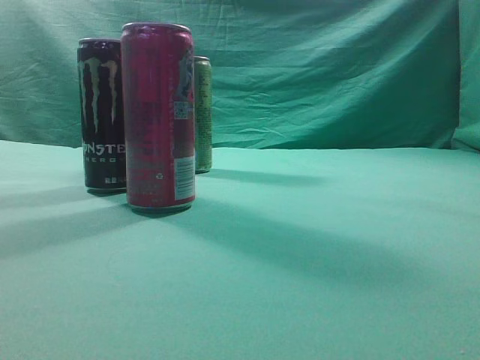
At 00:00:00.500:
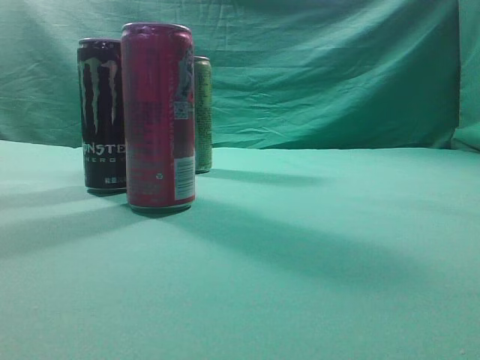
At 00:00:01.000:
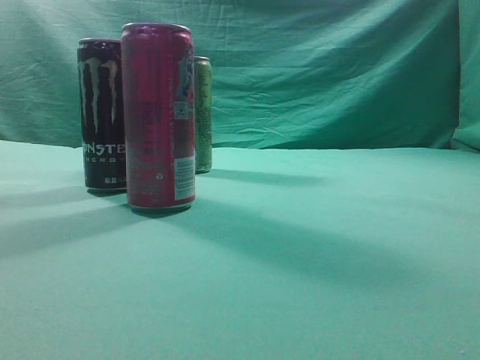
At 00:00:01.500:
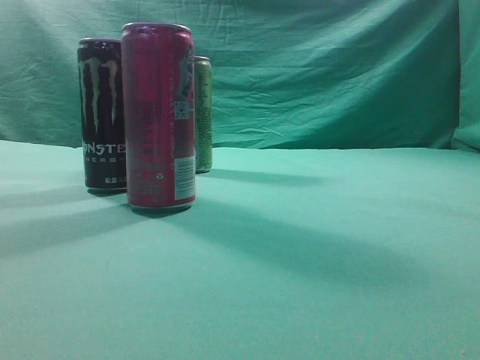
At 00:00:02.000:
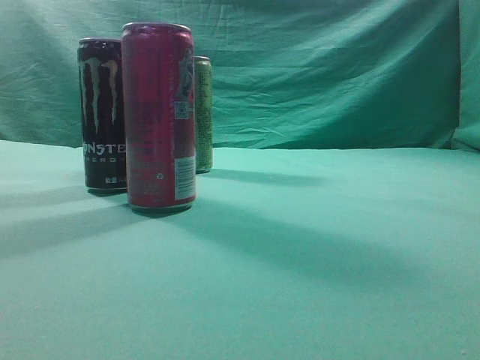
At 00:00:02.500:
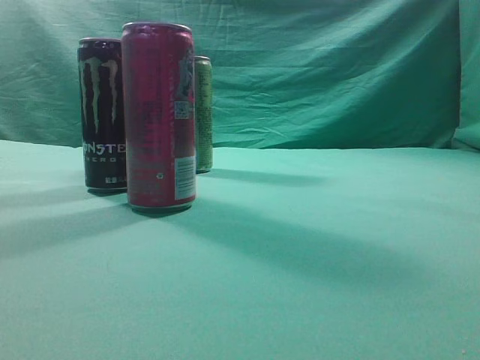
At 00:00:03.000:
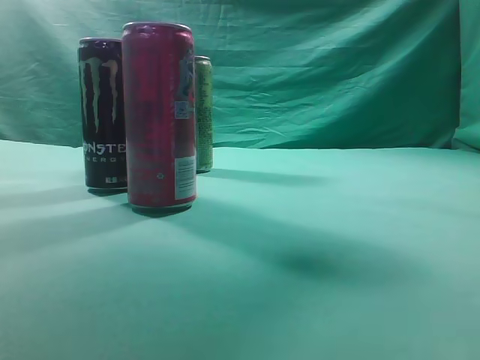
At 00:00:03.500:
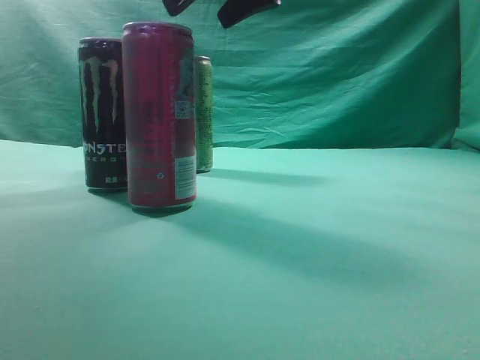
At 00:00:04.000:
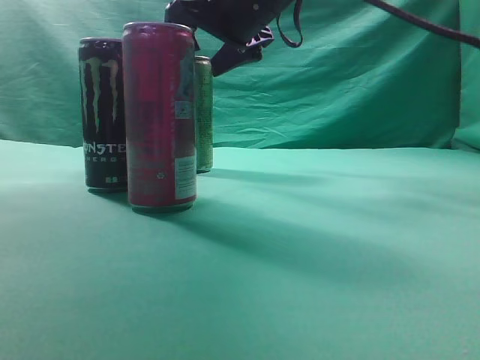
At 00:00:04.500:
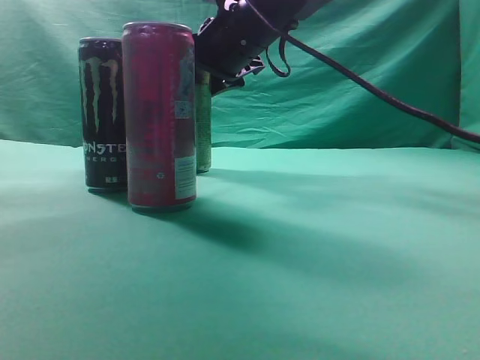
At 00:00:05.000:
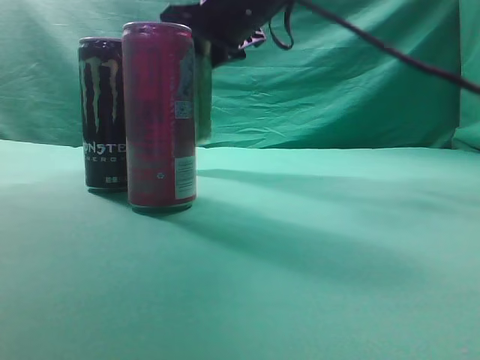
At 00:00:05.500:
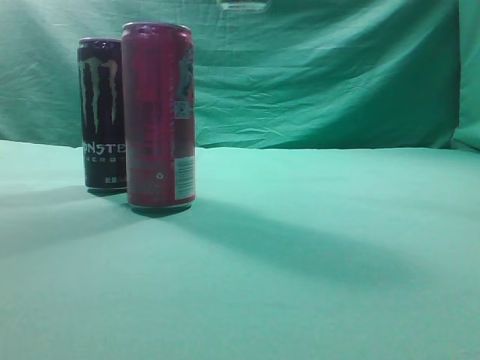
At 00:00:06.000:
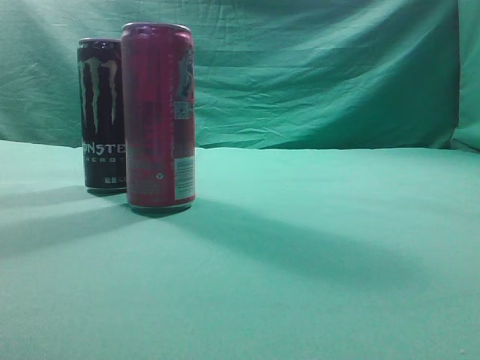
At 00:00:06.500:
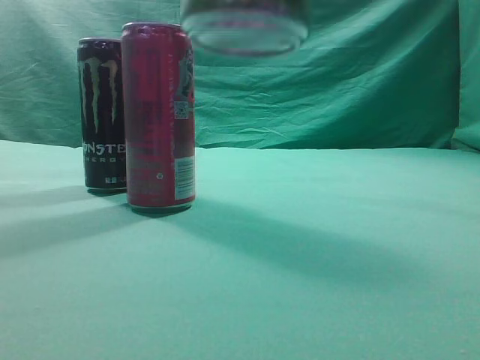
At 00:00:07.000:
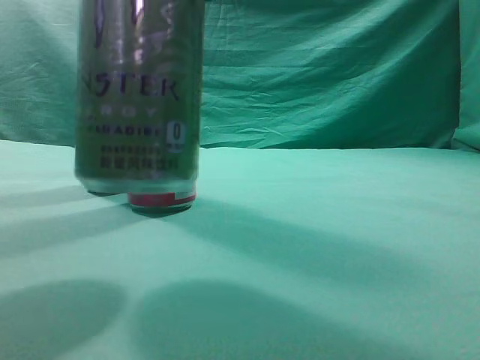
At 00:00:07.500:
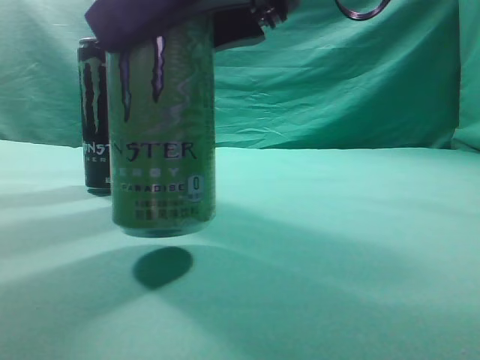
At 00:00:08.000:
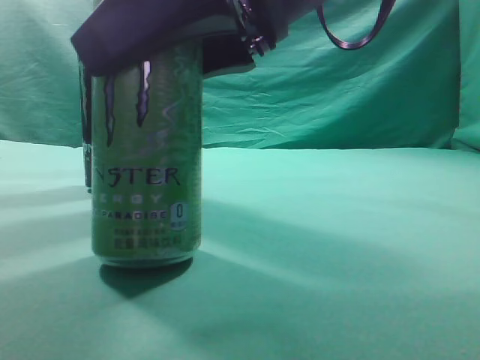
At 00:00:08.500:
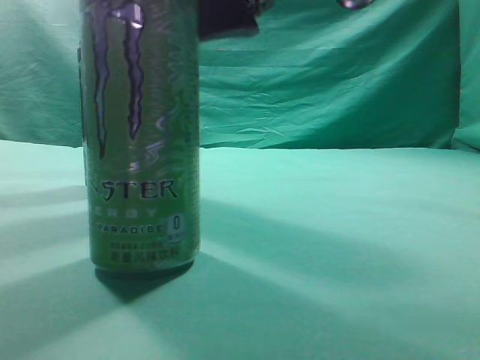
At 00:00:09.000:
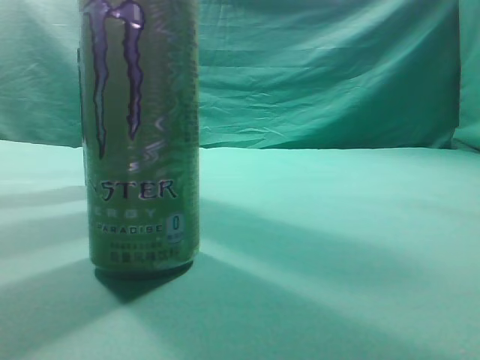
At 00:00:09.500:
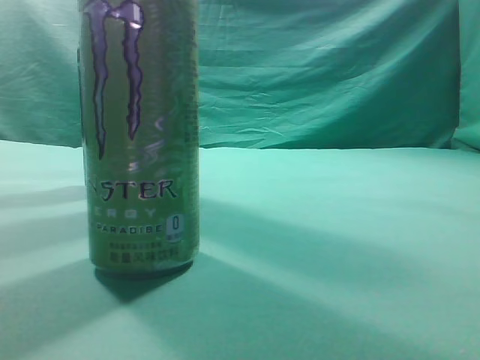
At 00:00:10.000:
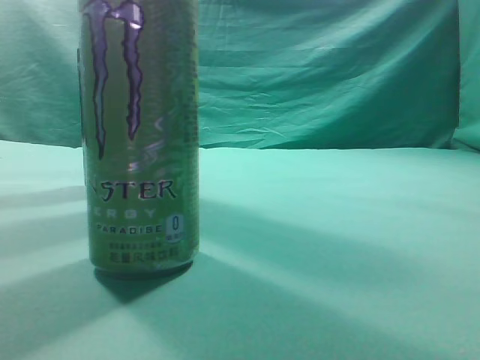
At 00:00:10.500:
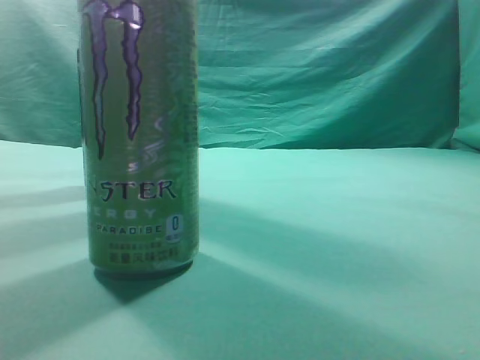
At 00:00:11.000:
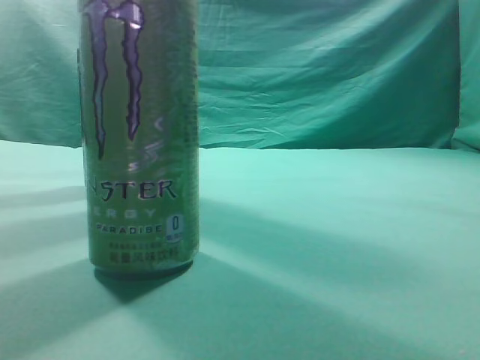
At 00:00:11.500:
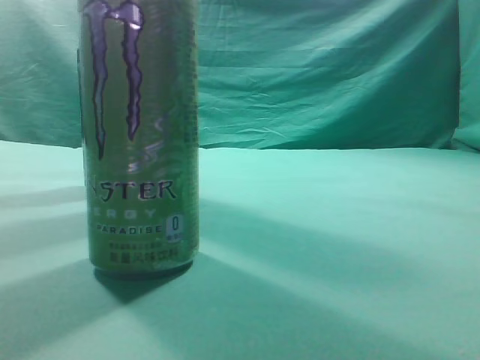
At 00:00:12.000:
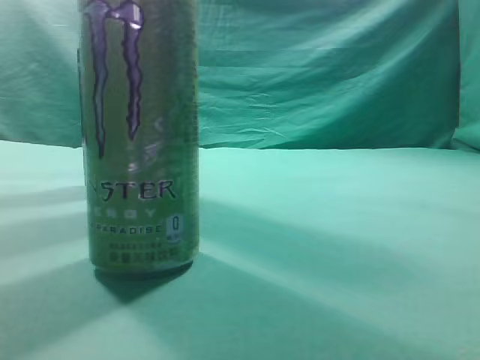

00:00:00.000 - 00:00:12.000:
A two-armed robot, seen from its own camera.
Task of the whole recording: move one drink among three beverages.
Step, 00:00:00.000 - 00:00:05.000: Grasp the beverage bottle placed at the back of the desk.
Step, 00:00:05.500 - 00:00:09.000: Place the beverage bottle to the front of the table.
00:00:02.000 - 00:00:04.000: The right gripper travels forward and to the left by some 40 cm, and opens its fingers.
00:00:04.000 - 00:00:06.000: The right gripper is displaced upward, backward and to the right by some 30 cm.
00:00:06.000 - 00:00:08.000: The right gripper shifts about 25 cm downward and to the left.
00:00:08.000 - 00:00:10.000: The right gripper shifts roughly 30 cm to the right, upward and backward, and closes up.
